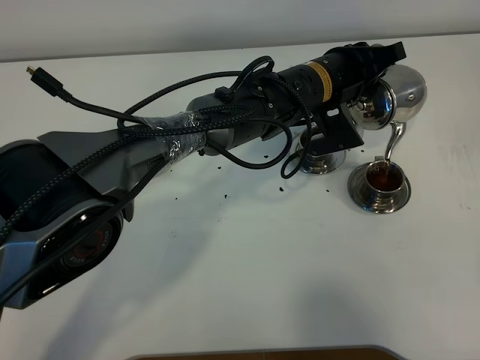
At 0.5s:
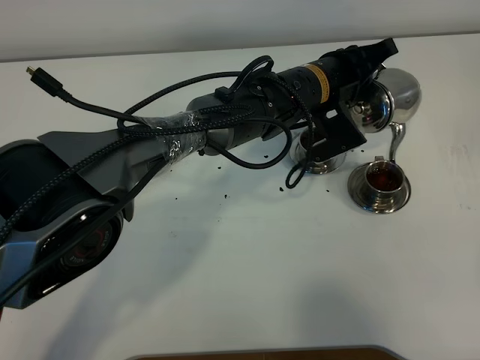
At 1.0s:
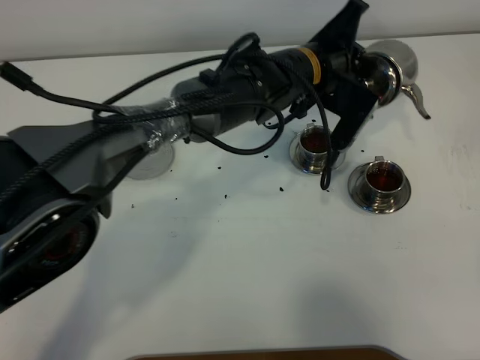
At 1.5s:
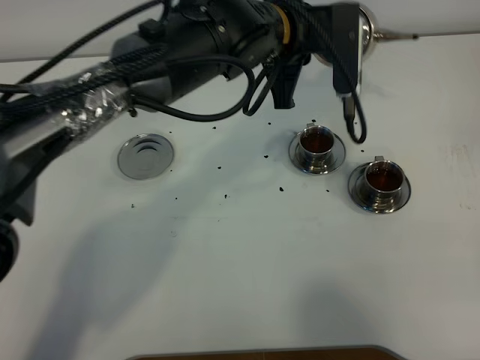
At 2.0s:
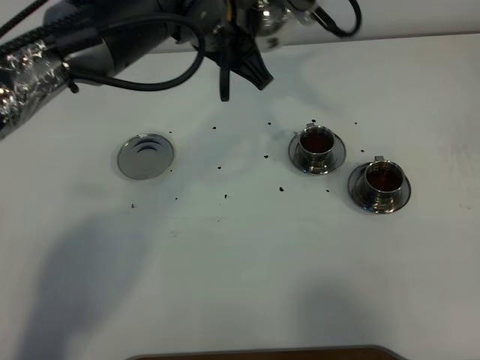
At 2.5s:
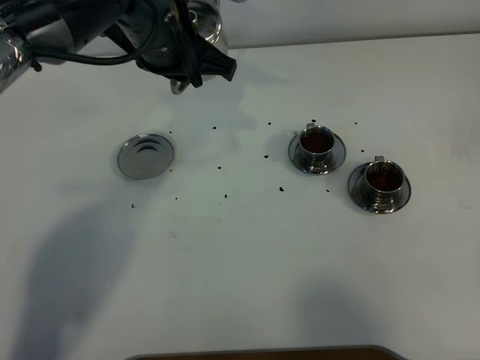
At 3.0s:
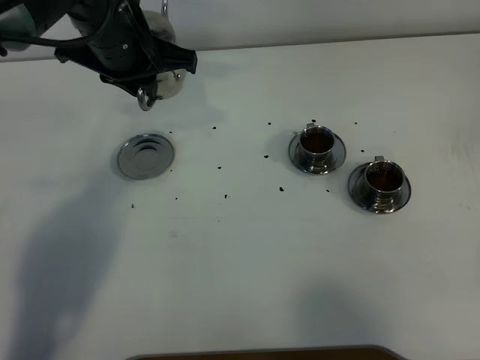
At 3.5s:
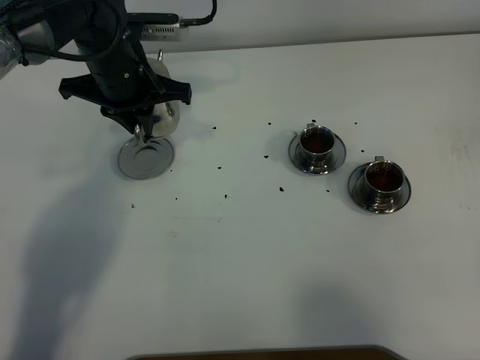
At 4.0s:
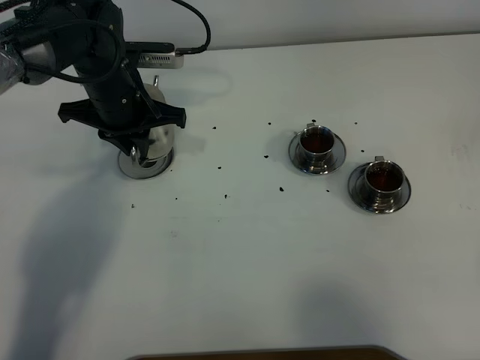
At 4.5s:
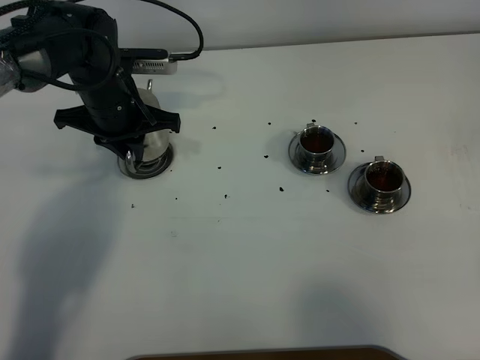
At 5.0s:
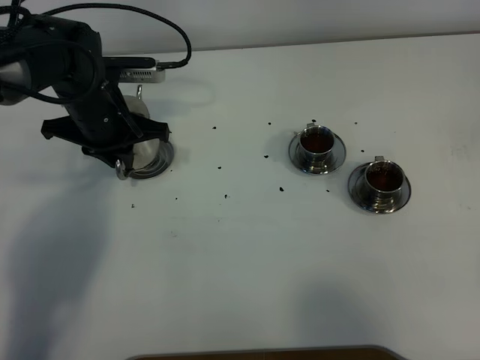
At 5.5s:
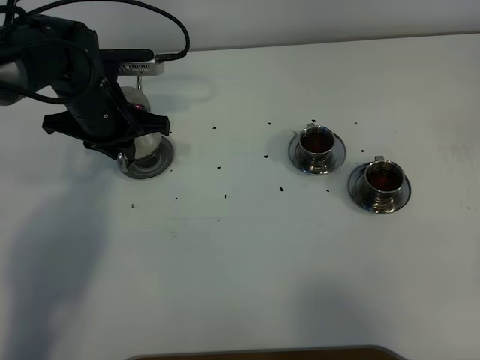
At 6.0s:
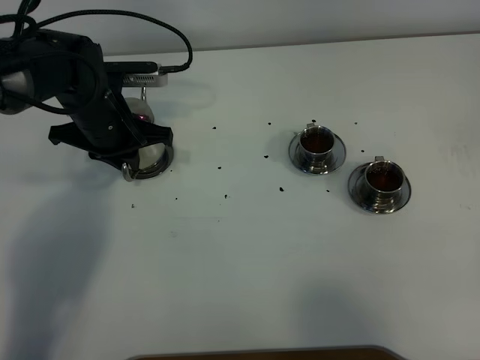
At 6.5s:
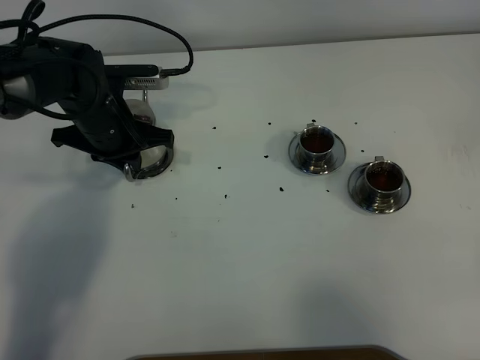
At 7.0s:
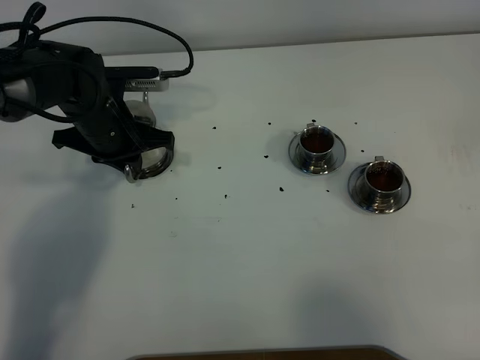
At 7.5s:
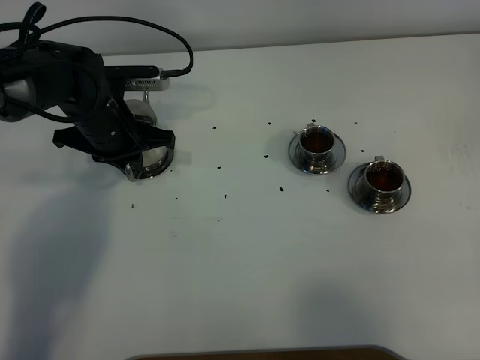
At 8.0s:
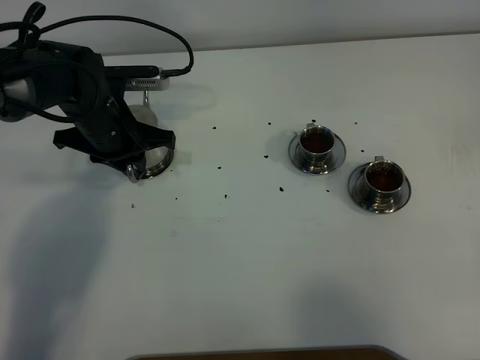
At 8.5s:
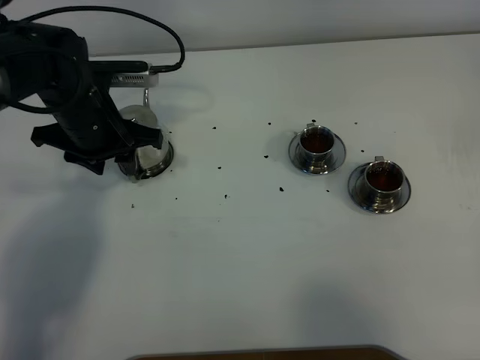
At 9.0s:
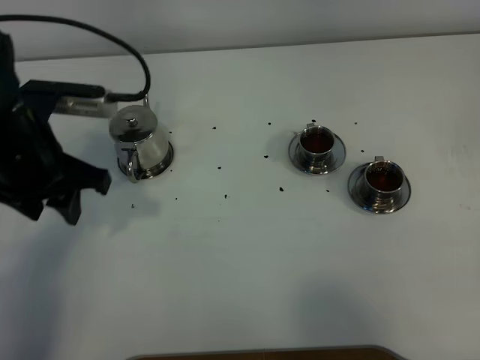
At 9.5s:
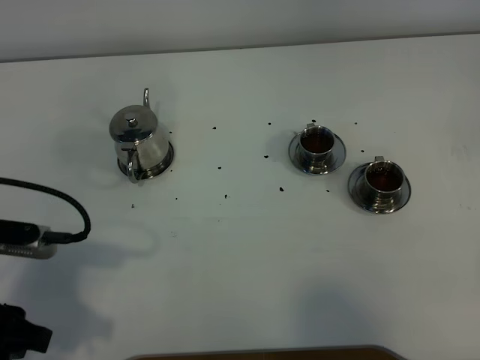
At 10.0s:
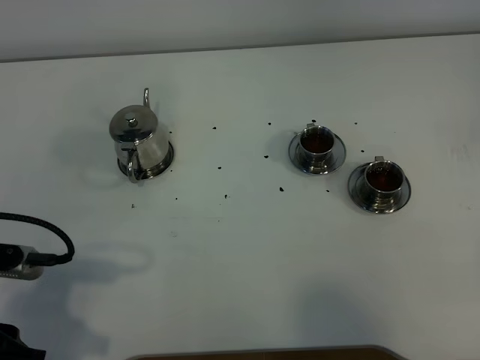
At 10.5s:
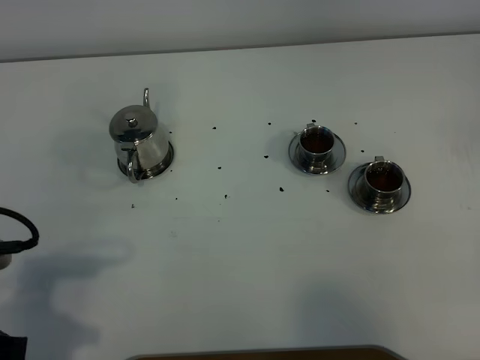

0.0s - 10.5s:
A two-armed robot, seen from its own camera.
Task of the whole recording: grasp the stainless steel teapot and pour the tea into the two stainless steel teacups one by one, put the stainless steel teapot back in its original place.
0.0s - 2.0s: The left gripper shifts about 15 cm upward and to the left.
2.0s - 4.0s: The left gripper moves to the left and downward, approximately 15 cm.
4.0s - 6.5s: The grippers move only a little.
6.5s - 8.5s: The left gripper opens up.
8.5s - 10.5s: The left gripper is displaced backward by roughly 30 cm.

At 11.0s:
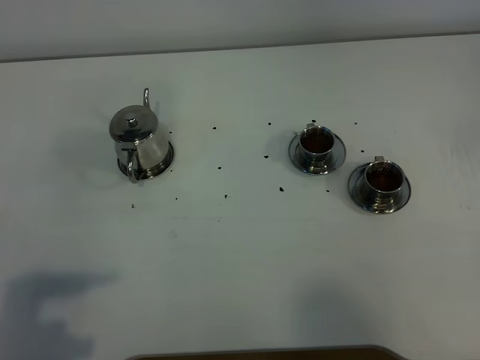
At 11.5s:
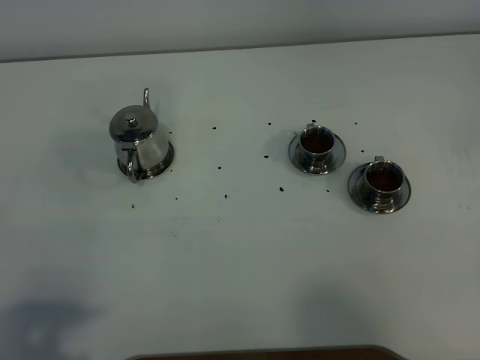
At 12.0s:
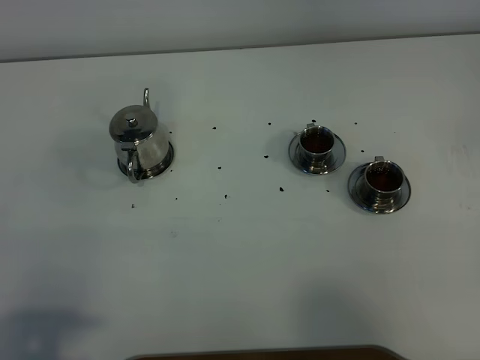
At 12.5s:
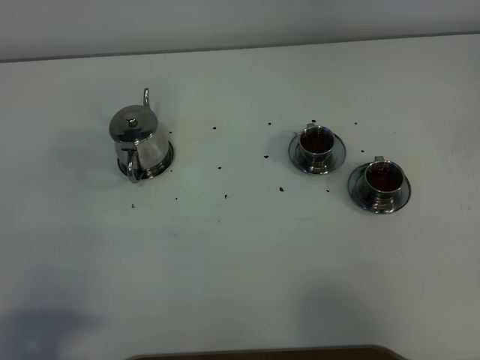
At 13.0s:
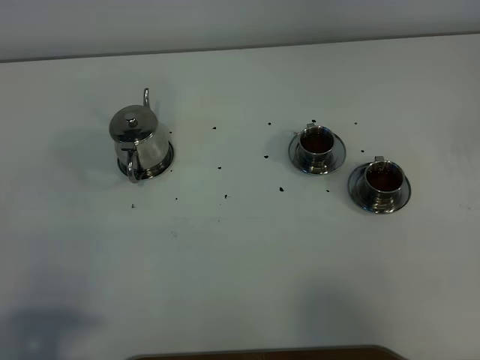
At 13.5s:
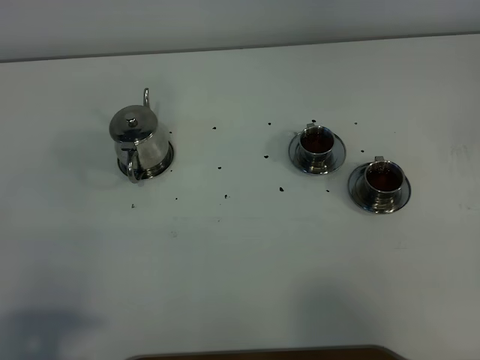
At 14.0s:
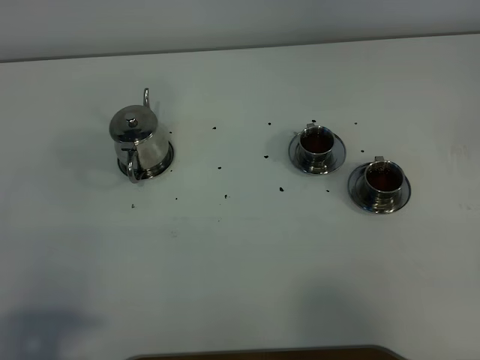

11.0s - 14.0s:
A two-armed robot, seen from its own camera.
Task of the whole recording: grasp the stainless steel teapot and pour the tea into the two stainless steel teacups one by one, put the stainless steel teapot back in its original place.
12.5s - 14.0s: Both grippers stay about where they are.

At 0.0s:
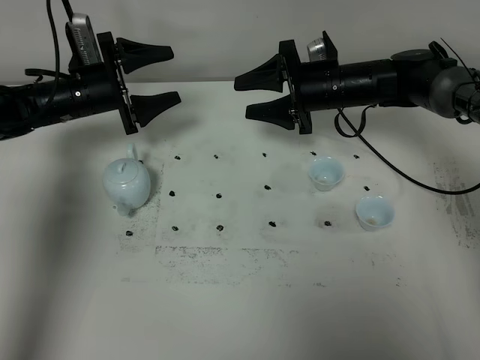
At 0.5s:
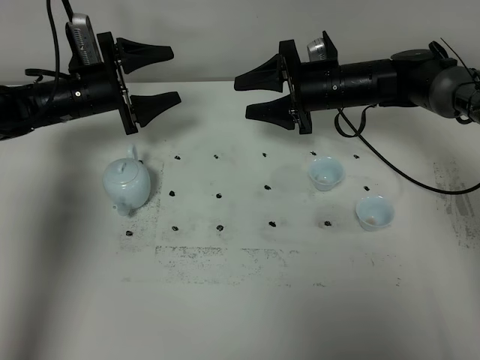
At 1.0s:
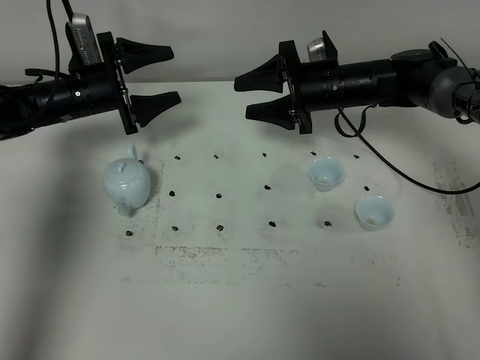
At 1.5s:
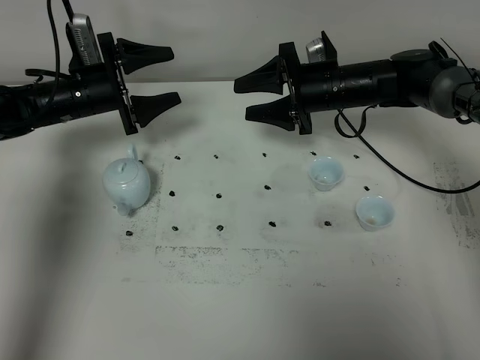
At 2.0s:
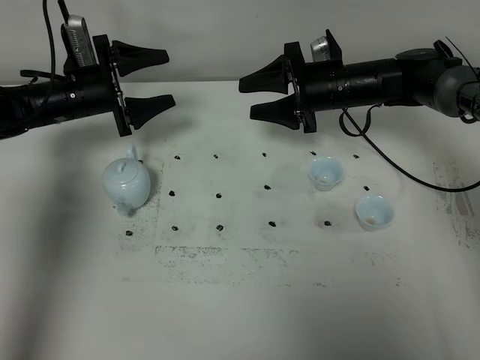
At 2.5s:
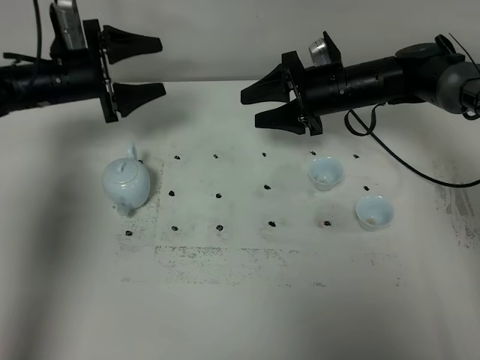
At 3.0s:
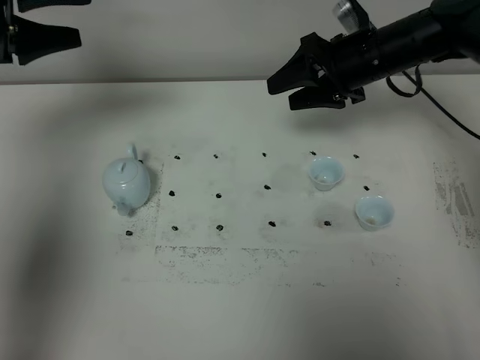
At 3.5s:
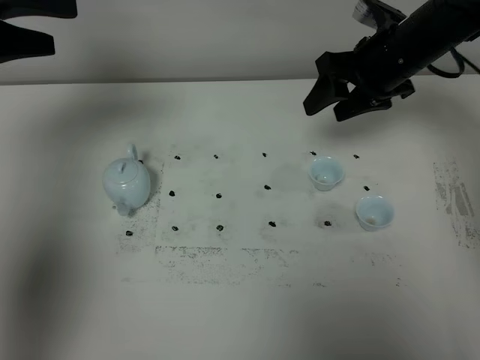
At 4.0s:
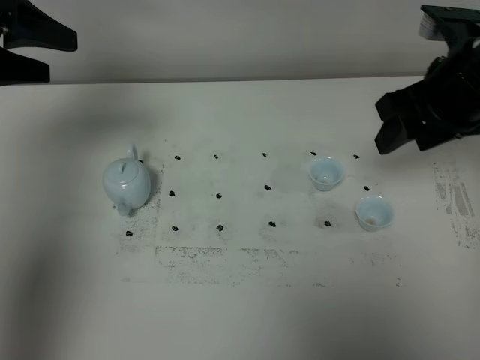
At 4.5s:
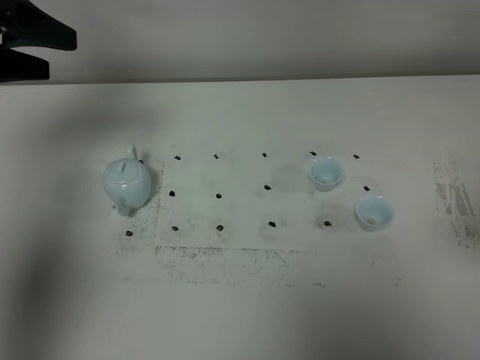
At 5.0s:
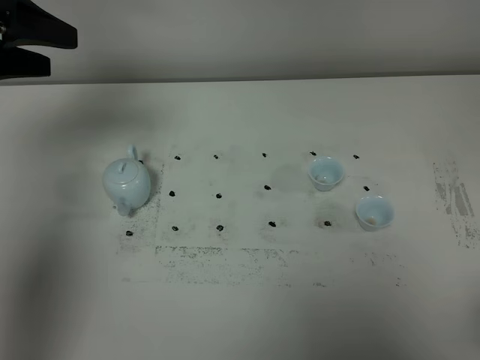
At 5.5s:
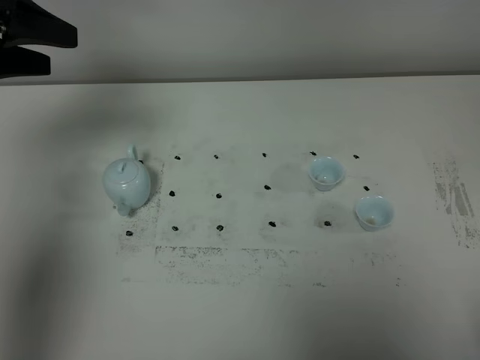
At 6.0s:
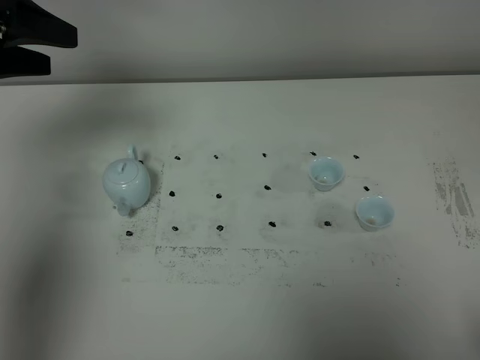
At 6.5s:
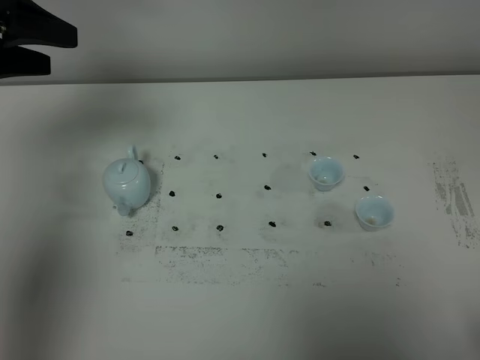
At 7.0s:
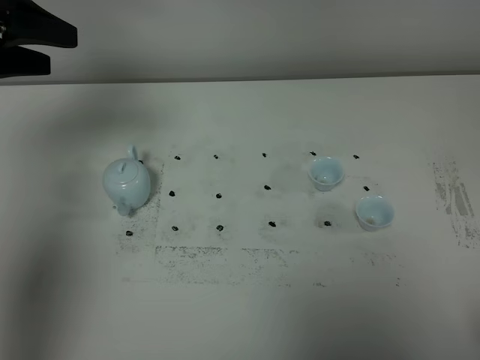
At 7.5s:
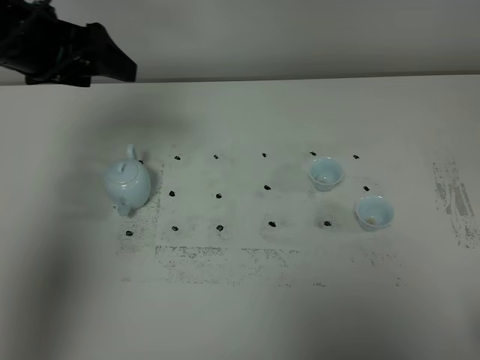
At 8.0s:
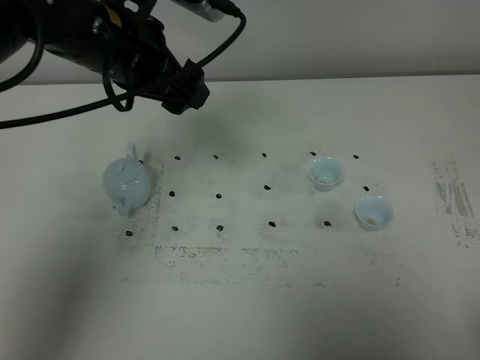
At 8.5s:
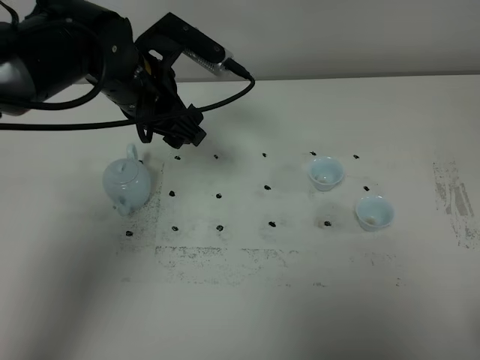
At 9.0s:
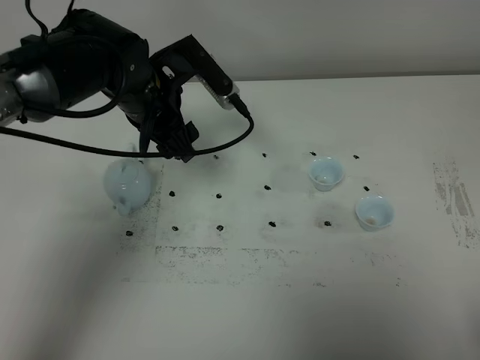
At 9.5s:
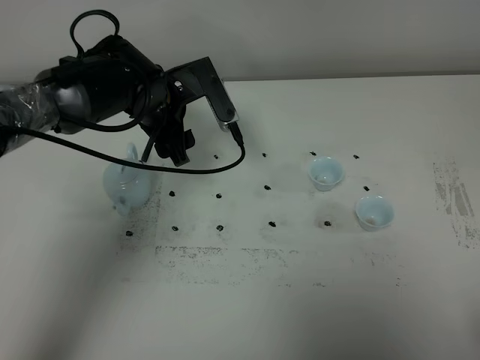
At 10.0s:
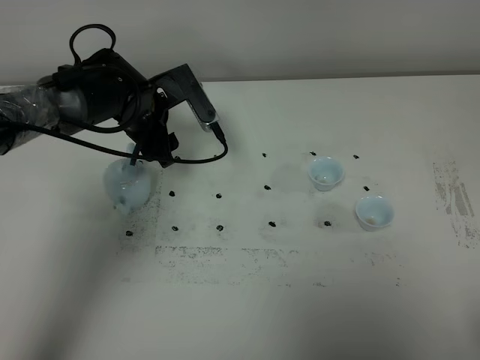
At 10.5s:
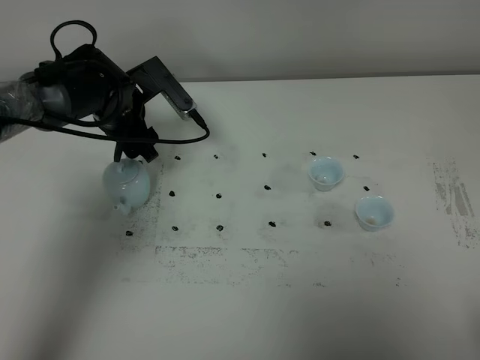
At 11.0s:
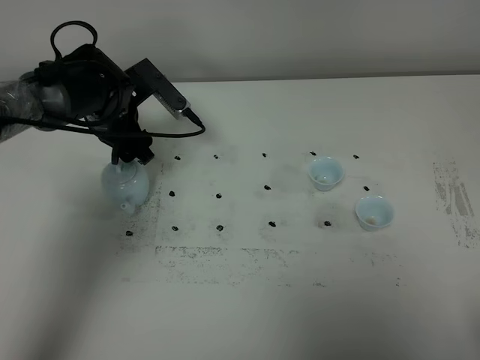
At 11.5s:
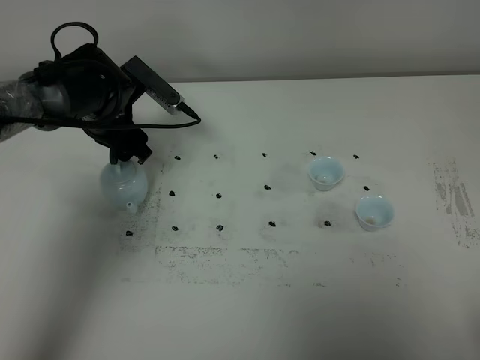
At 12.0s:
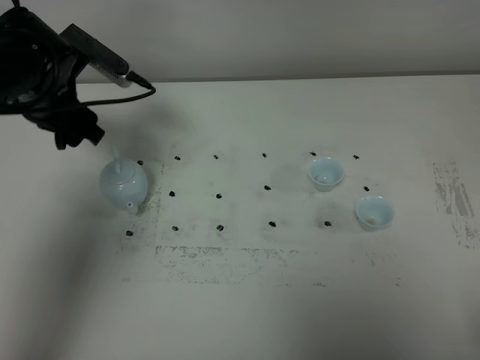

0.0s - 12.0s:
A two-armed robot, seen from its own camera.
Task of the whole recording: grasp the blue porcelain teapot and pour the tea into the two blue porcelain teacups one by one, put the blue porcelain teapot back in its original place.
0.0s - 2.0s: Neither gripper changes place.
2.0s - 4.0s: The right gripper travels backward, upward and to the right by some 25 cm, while the left gripper travels upward and backward by approximately 25 cm.
4.0s - 6.0s: The right gripper travels backward by about 35 cm.
6.0s - 8.0s: The left gripper heads to the right, covering about 20 cm.
8.0s - 10.0s: The left gripper moves downward and forward, roughly 20 cm.
10.0s - 12.0s: The left gripper goes some 10 cm to the left and upward.
